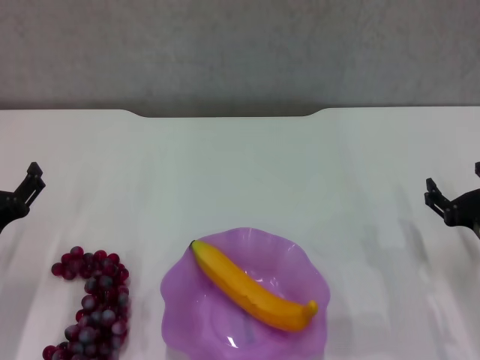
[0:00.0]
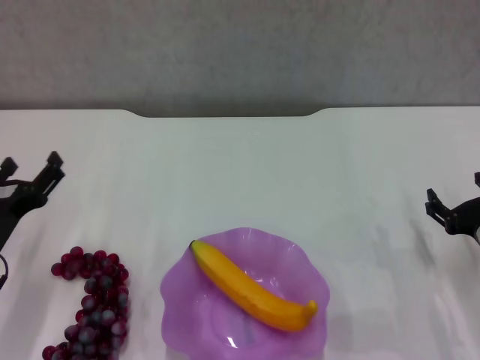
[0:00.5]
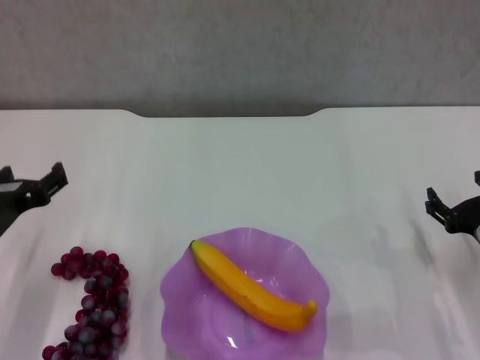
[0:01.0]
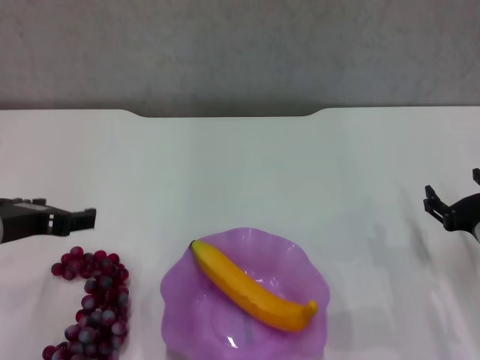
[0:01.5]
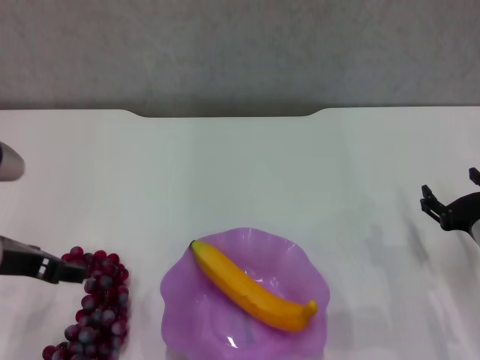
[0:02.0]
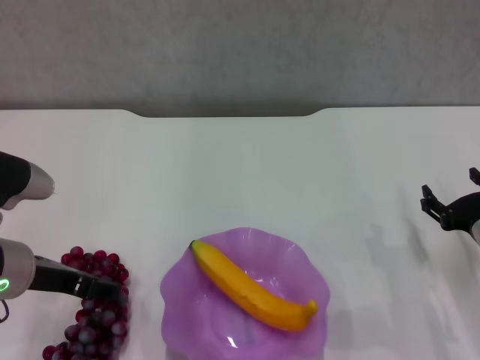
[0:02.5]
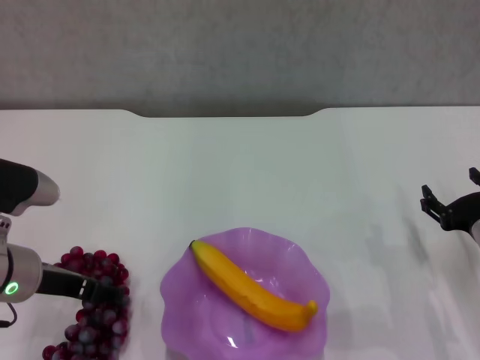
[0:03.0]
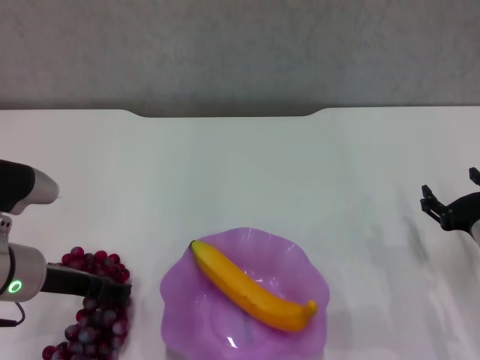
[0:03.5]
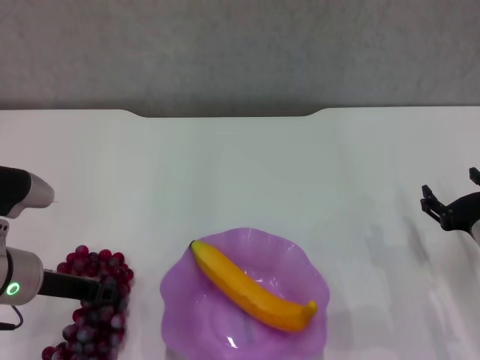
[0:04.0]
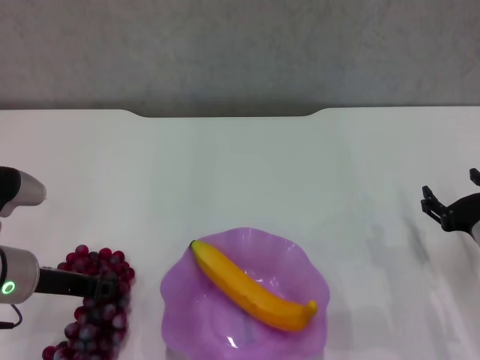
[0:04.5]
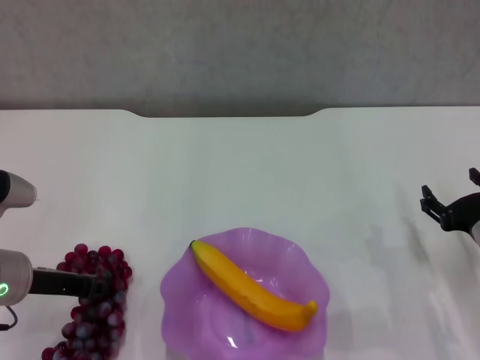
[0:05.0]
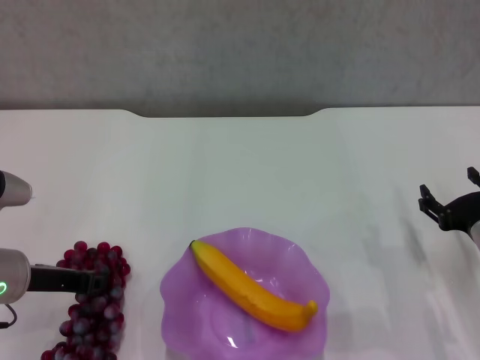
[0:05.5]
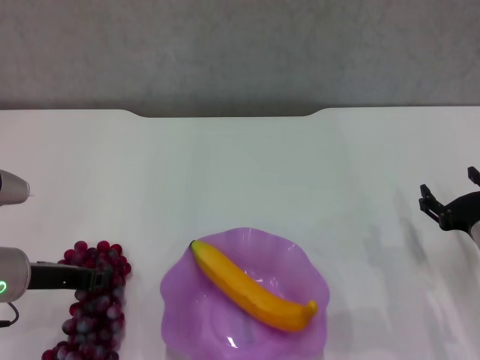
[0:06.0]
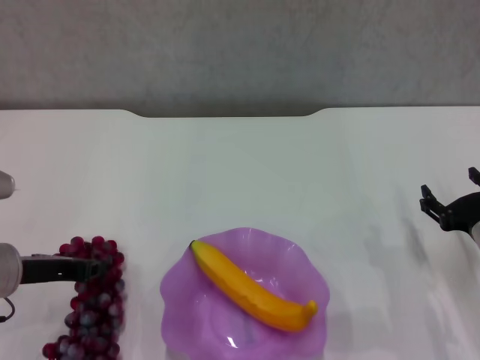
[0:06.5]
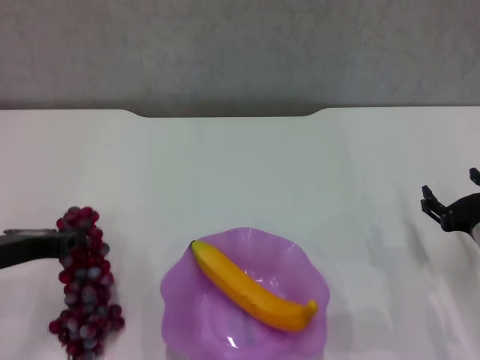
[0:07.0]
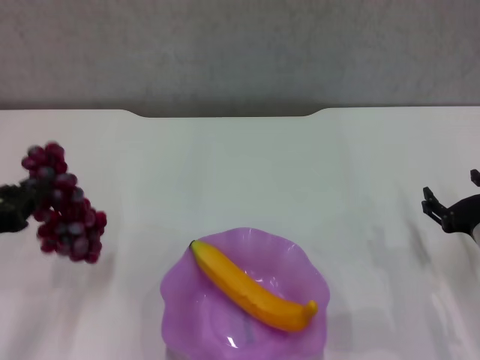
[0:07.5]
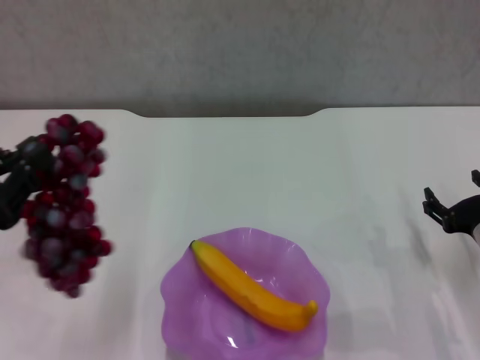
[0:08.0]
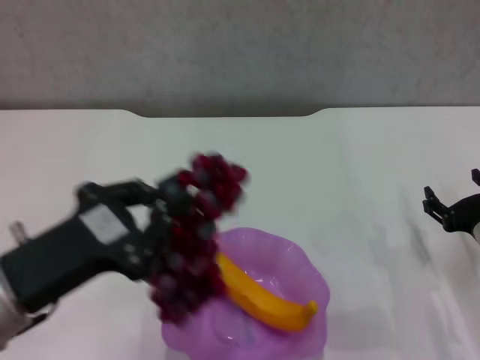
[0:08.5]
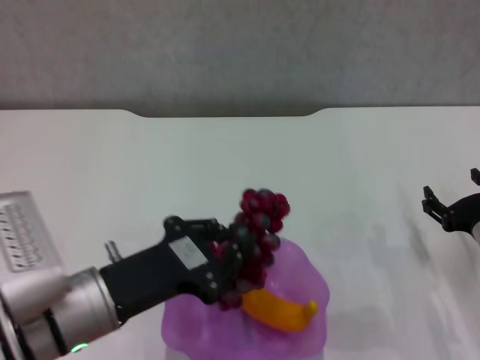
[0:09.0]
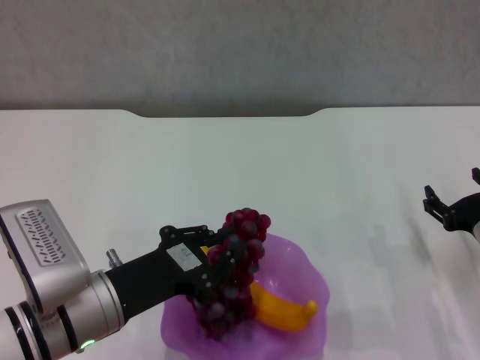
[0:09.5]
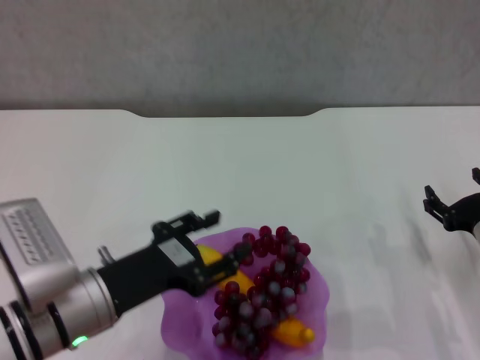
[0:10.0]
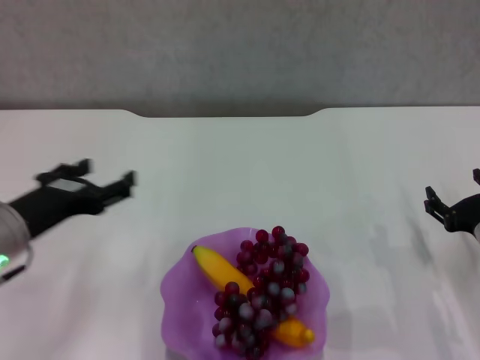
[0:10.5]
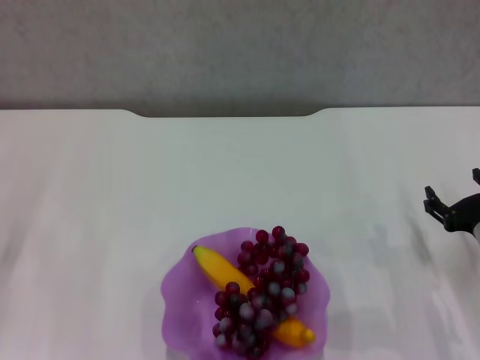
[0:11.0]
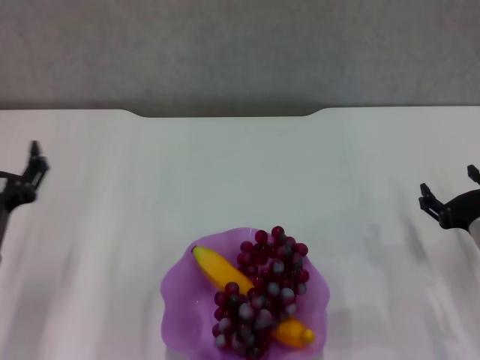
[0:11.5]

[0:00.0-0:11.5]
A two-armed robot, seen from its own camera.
Step, 0:00.0 to 0:04.0: Grasp the grape with left gripper.
Step, 0:04.5 to 0:09.5: Place the grape in the purple plate with left gripper.
0:00.0 to 0:02.0: The left gripper moves upward, approximately 10 cm.
0:02.0 to 0:04.0: The left gripper is displaced downward by about 5 cm, and closes up.
0:04.0 to 0:06.0: The left gripper closes up.
0:06.0 to 0:07.5: The left gripper goes approximately 10 cm backward and upward.
0:07.5 to 0:09.5: The left gripper moves to the right and downward, about 15 cm.
0:09.5 to 0:11.5: The left gripper travels to the left by approximately 10 cm, and opens up.
